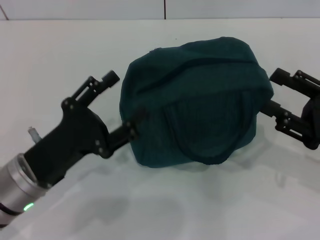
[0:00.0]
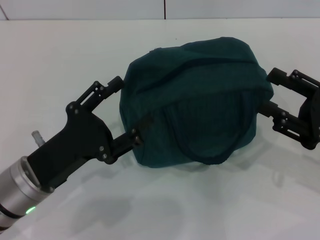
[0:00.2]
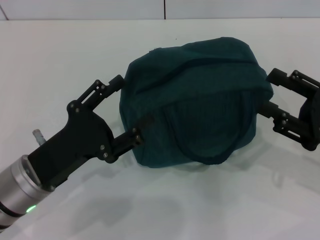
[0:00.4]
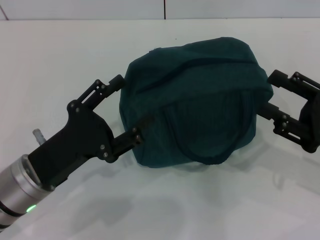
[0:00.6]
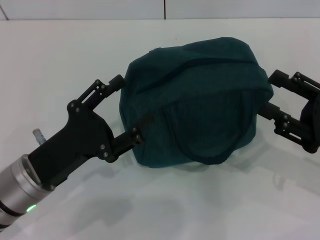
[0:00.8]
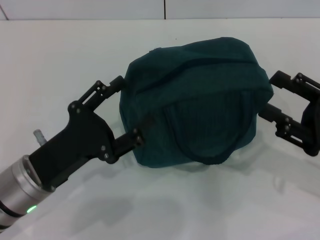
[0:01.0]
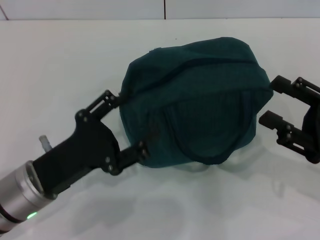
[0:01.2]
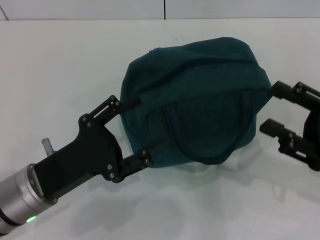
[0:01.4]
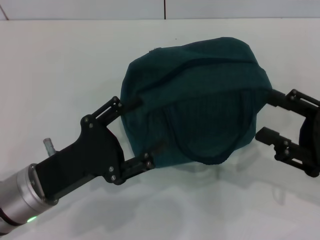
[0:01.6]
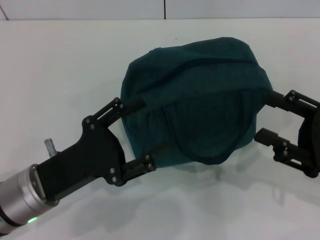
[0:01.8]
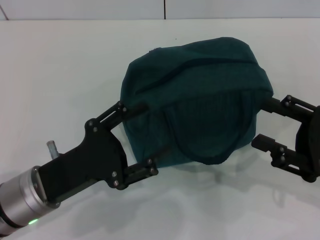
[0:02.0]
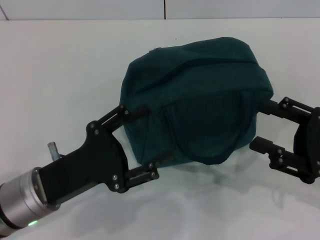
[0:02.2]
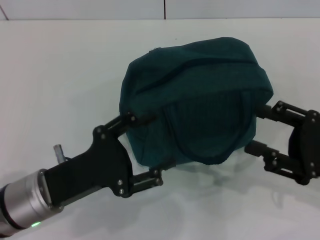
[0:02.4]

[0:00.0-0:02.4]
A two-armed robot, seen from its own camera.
0:00.0 to 0:02.4: The grippers move only a little.

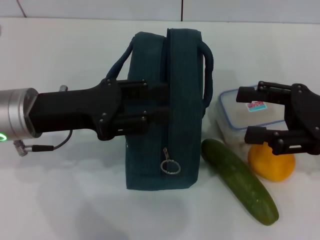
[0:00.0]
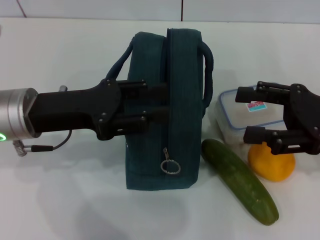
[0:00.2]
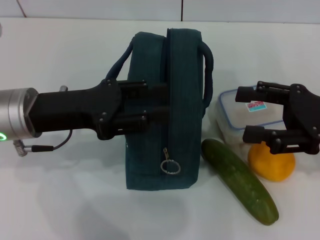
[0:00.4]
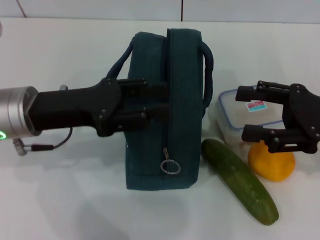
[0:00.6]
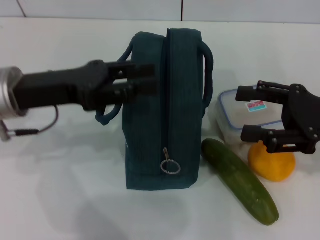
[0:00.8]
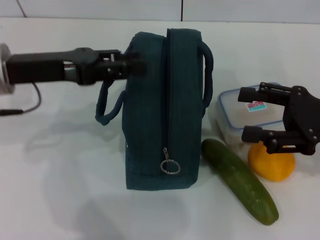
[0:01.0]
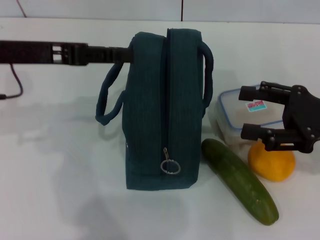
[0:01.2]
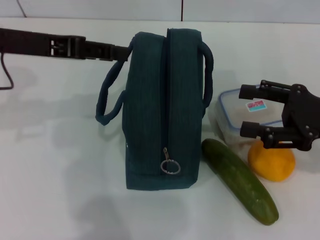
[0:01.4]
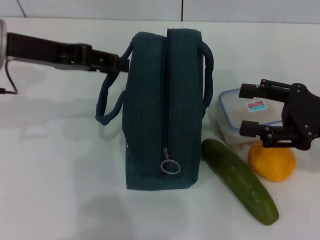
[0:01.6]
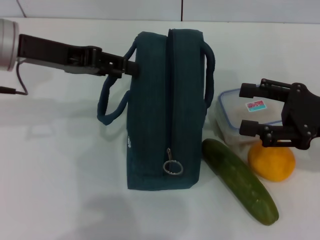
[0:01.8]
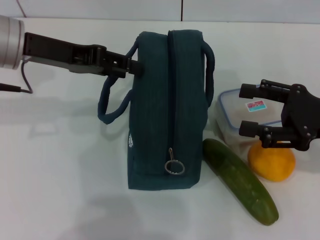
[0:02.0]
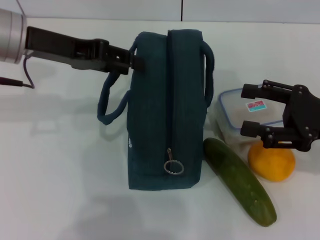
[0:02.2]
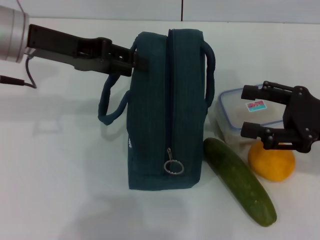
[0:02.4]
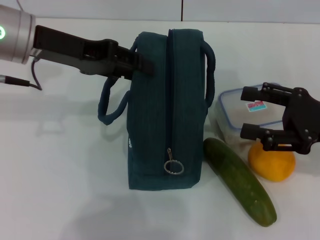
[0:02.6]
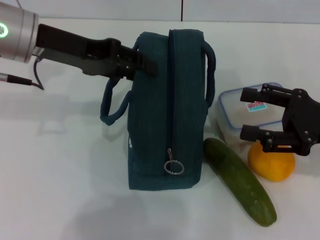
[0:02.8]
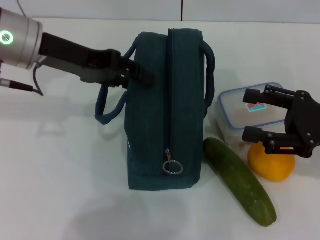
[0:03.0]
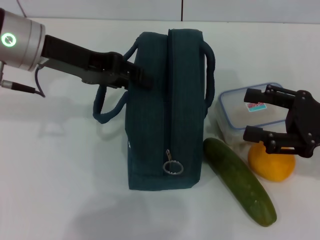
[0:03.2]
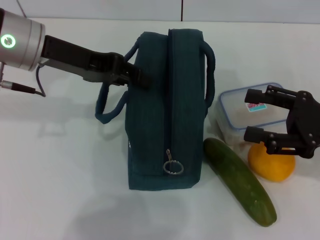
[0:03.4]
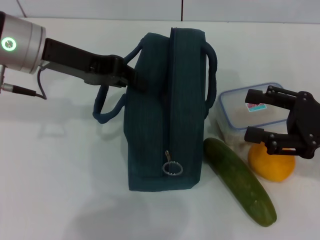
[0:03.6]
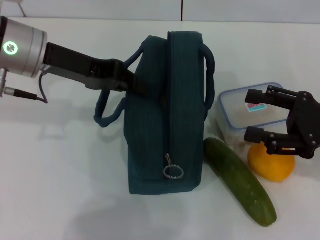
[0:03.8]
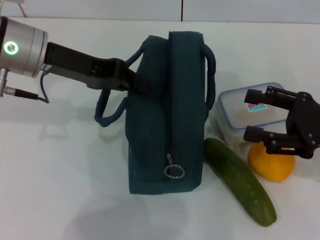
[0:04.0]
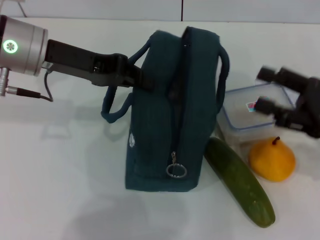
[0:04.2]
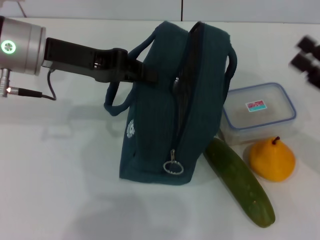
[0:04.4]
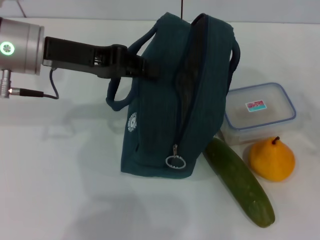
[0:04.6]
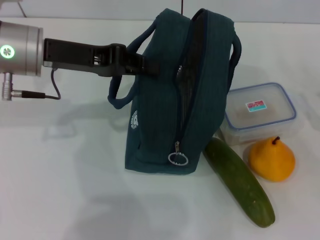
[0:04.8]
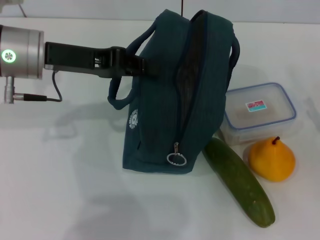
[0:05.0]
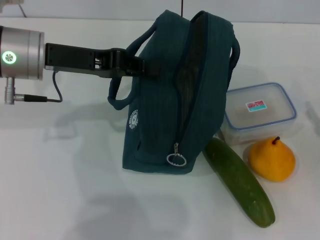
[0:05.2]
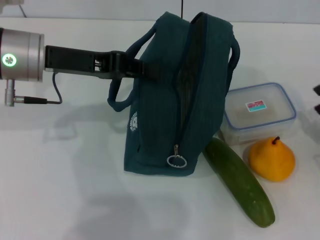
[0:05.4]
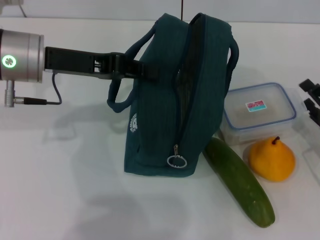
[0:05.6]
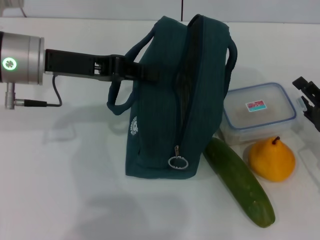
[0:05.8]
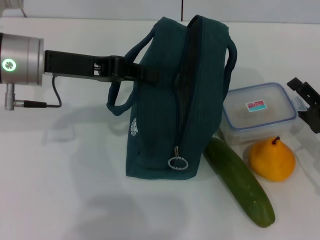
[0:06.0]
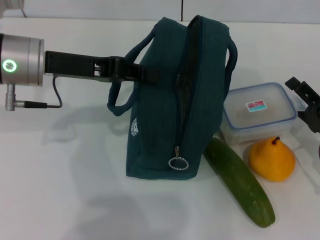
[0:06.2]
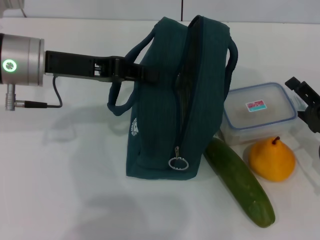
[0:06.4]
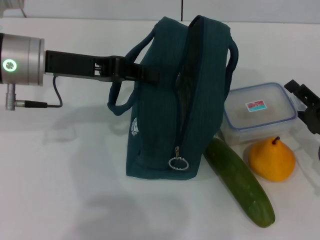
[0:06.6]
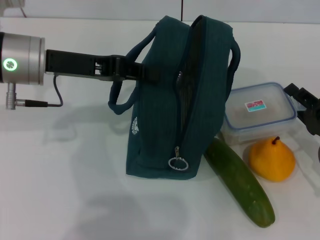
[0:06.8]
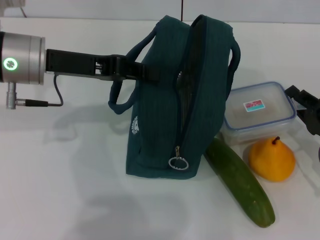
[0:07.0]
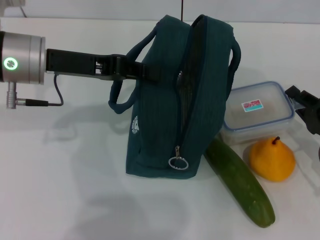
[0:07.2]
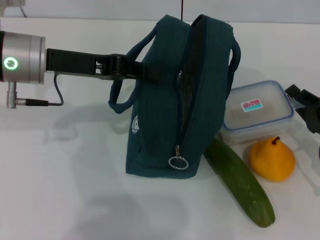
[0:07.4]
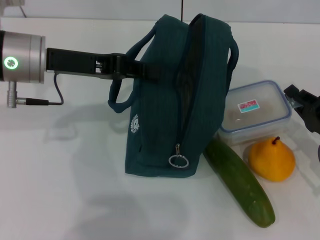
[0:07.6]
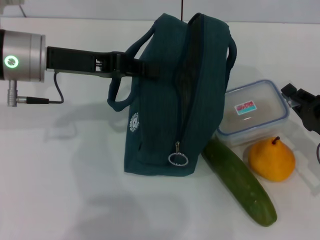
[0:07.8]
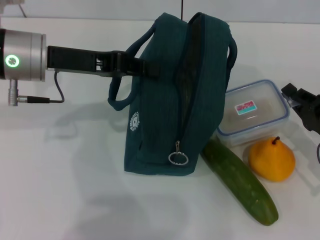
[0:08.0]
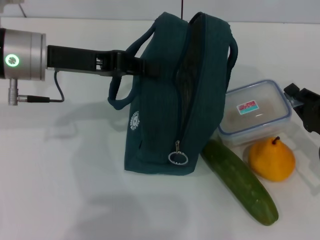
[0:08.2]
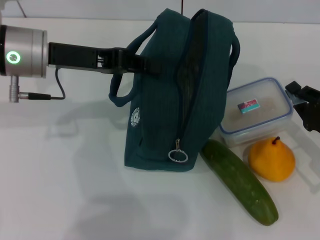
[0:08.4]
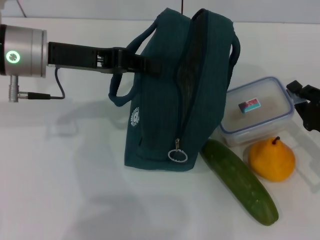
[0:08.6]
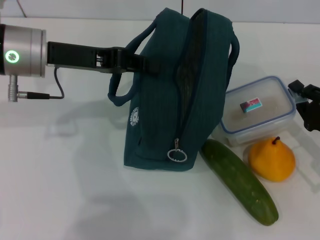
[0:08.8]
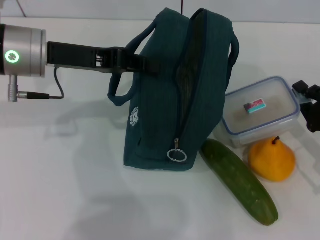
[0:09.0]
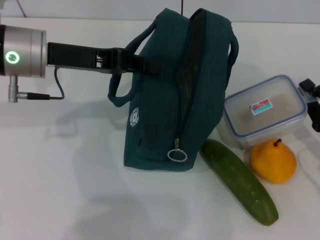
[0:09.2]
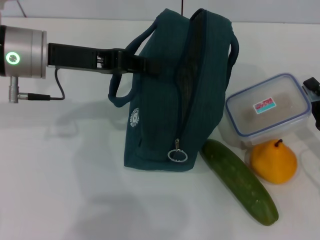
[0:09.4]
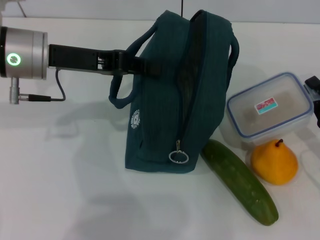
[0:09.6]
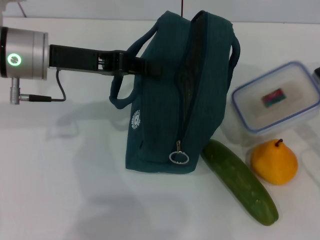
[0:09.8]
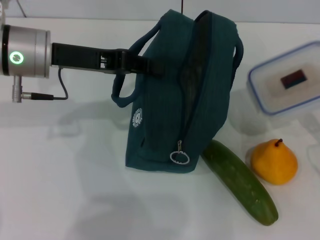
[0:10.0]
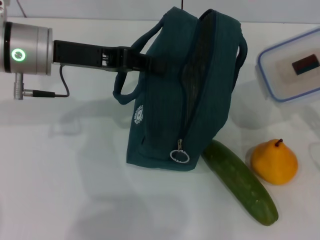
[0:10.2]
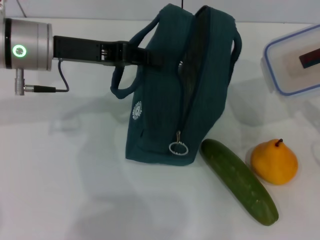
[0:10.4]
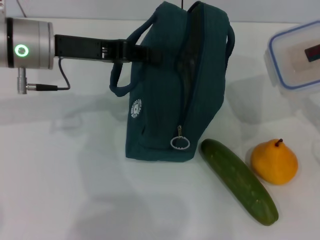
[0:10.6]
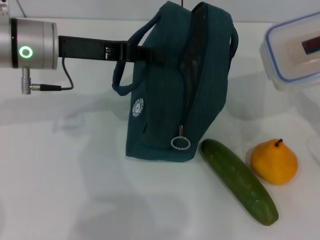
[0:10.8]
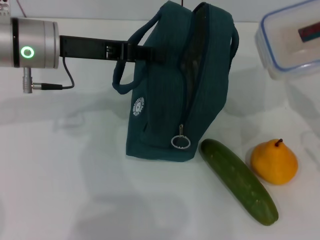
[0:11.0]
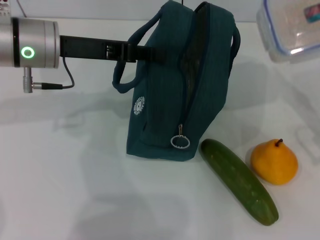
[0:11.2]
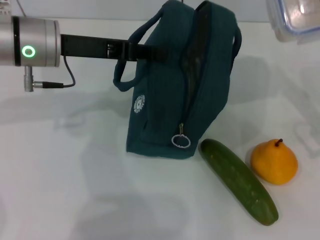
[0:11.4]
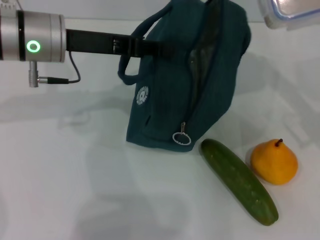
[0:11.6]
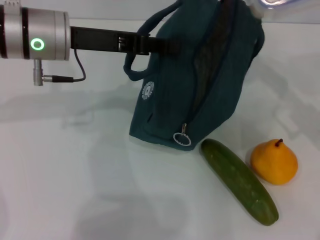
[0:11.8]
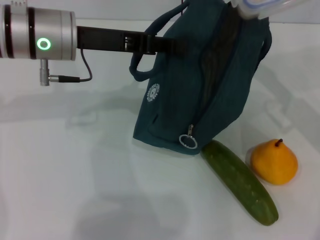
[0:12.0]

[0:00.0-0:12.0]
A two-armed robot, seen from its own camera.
Step, 0:00.0 to 0:05.2: Hold the lunch bag with your left hand.
Step, 0:05.4 to 0:08.6: Pick up the lunch box with your right hand.
0:00.0 to 0:01.6: The left gripper travels upward by roughly 10 cm.
0:01.6 to 0:03.0: There are only small adjustments of the grippers.
0:03.0 to 0:04.4: The left gripper closes.
0:04.4 to 0:06.0: The right gripper moves downward, about 10 cm.
0:06.0 to 0:07.6: The right gripper closes its fingers.
0:07.6 to 0:09.0: The grippers stay close to where they were, moving slightly.
0:09.0 to 0:10.4: The right gripper shifts by some 5 cm.
0:10.4 to 0:12.0: The right gripper shifts some 10 cm forward, upward and to the left.

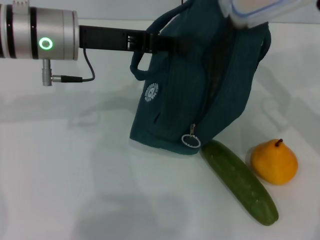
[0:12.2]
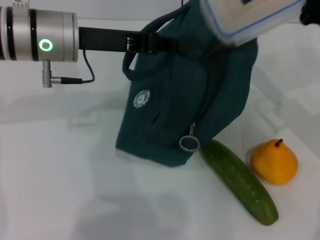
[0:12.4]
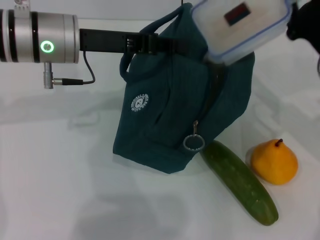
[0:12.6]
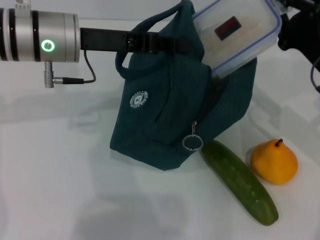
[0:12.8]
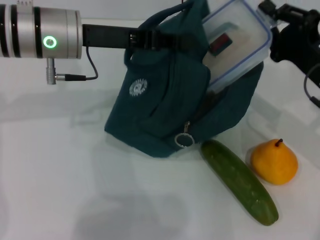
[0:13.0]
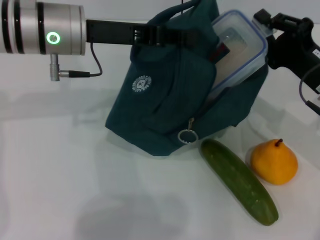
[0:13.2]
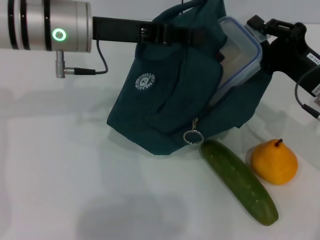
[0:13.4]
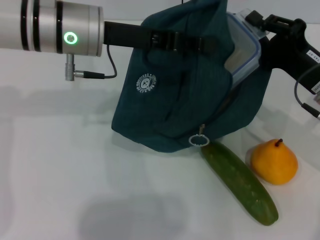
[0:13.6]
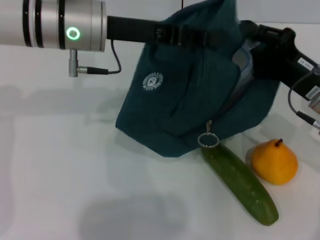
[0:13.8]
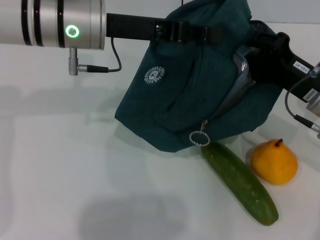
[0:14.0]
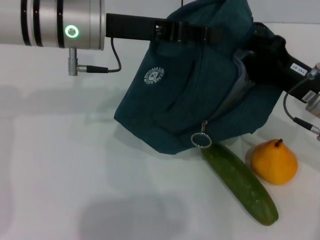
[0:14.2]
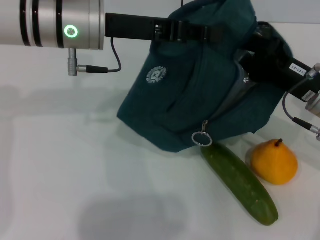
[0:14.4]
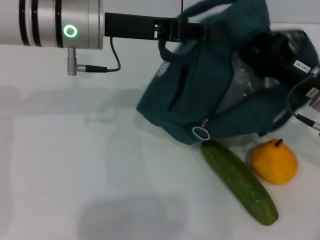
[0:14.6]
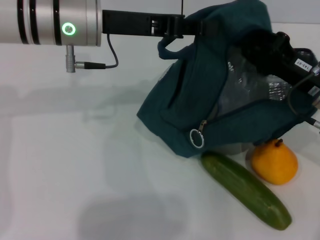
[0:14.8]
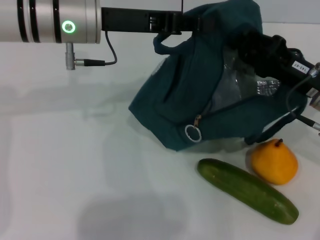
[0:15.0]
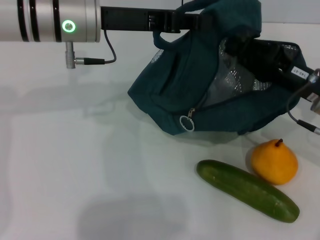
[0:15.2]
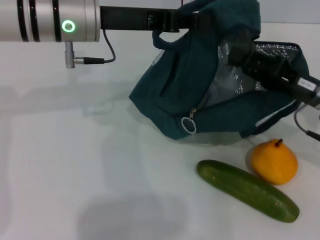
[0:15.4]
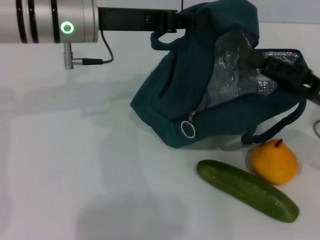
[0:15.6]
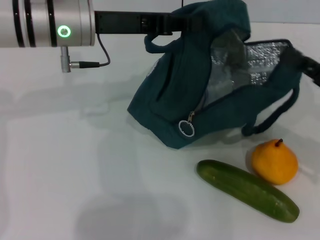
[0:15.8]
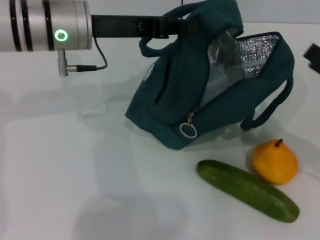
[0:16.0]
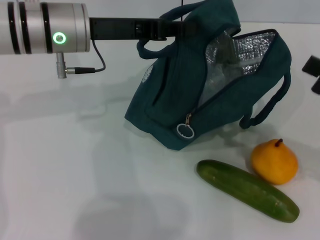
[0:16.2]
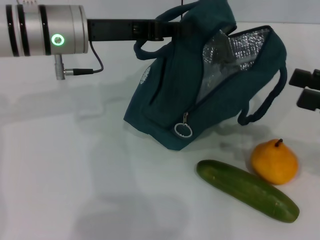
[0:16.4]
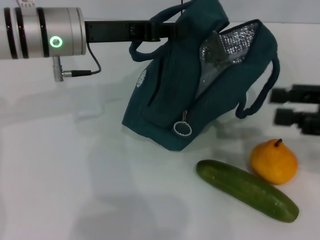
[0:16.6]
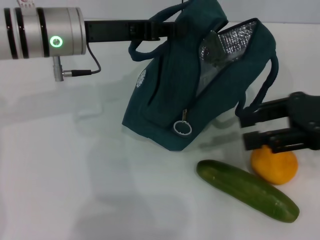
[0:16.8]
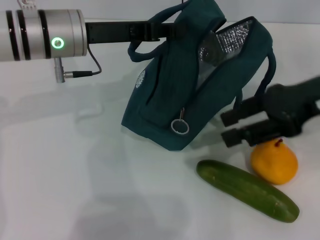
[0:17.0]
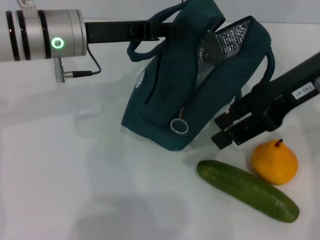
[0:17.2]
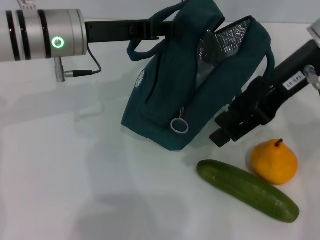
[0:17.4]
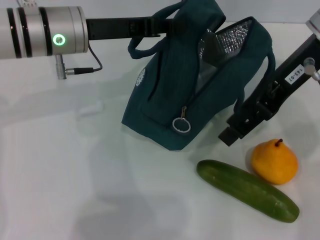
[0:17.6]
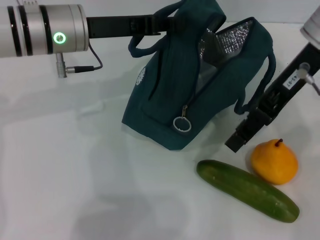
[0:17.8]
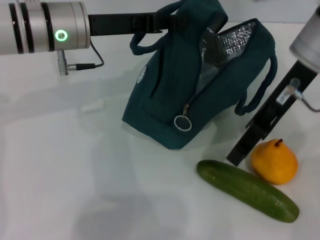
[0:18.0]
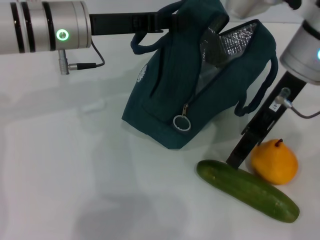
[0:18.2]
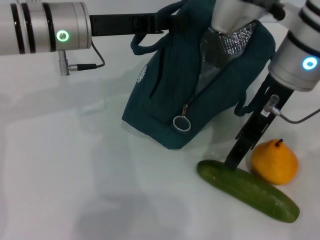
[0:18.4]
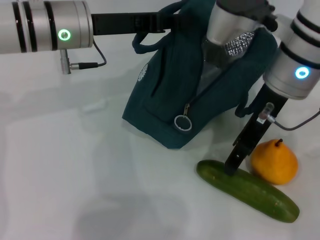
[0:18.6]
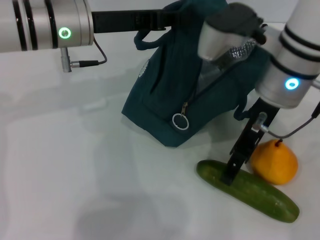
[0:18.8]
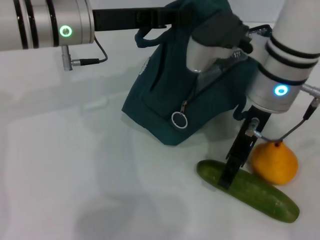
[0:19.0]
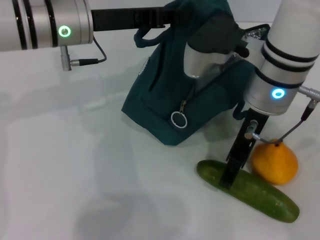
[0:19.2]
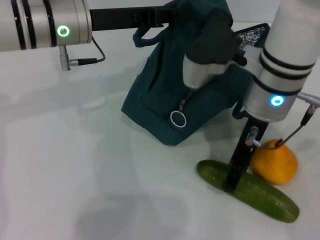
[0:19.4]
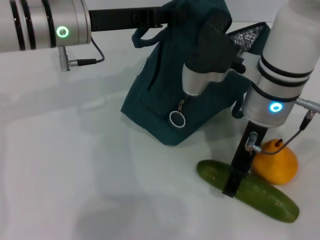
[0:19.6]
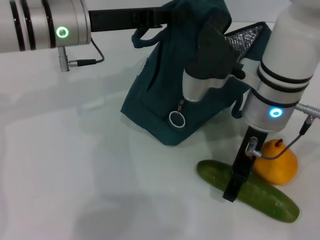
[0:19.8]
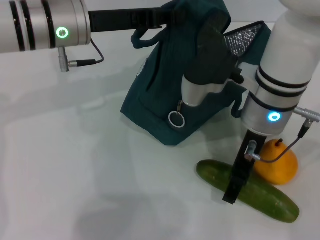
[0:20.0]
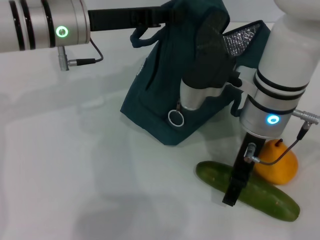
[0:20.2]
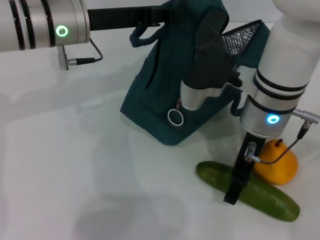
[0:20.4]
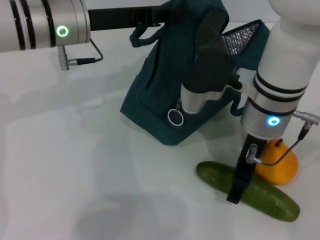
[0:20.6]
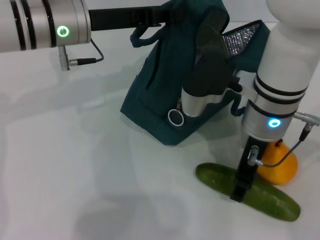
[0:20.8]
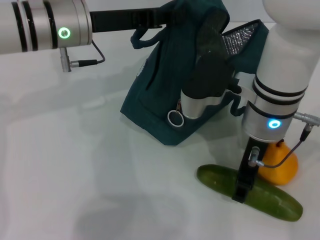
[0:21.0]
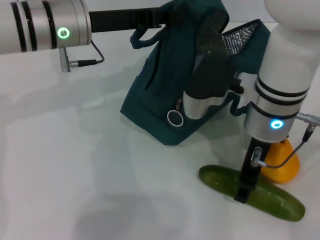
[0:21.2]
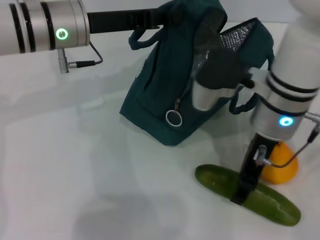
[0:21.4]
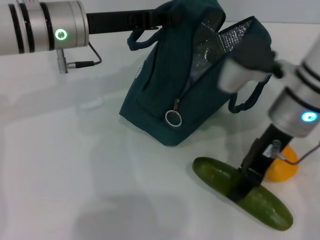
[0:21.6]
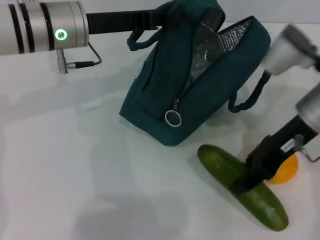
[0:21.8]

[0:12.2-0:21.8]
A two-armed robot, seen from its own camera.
Step, 0:12.2 to 0:15.4: Place the lunch box into the lunch bag with your right hand.
Step, 0:15.8 to 0:21.0: Pick up the cucumber with your right hand.
0:12.2 to 0:13.8: The right gripper moves approximately 5 cm.
0:15.4 to 0:17.0: The right gripper travels upward by about 10 cm, and opens up.
0:17.0 to 0:18.6: The right gripper shifts some 10 cm to the left.
0:18.6 to 0:20.2: The right gripper is displaced downward by roughly 5 cm.
0:20.2 to 0:21.8: The right gripper moves to the right, about 10 cm, and closes its fingers.
